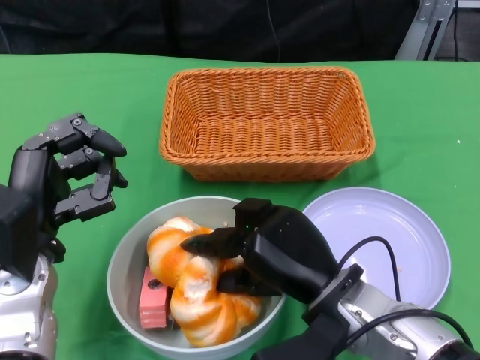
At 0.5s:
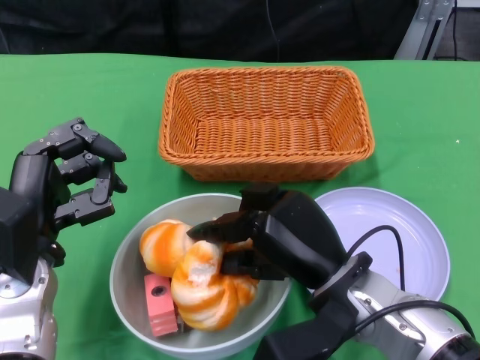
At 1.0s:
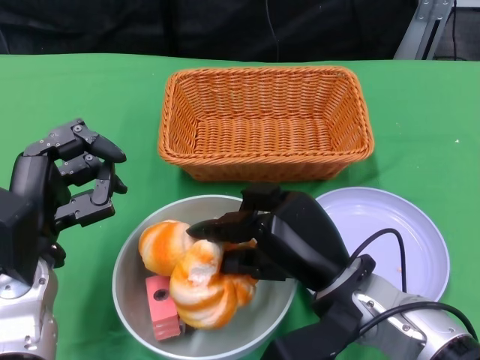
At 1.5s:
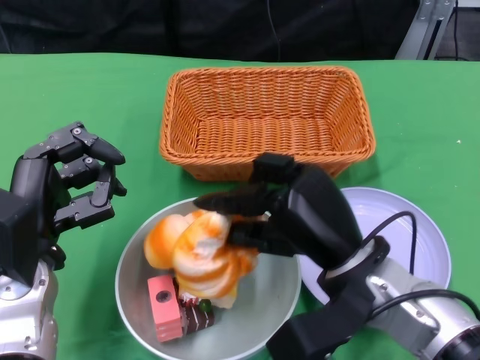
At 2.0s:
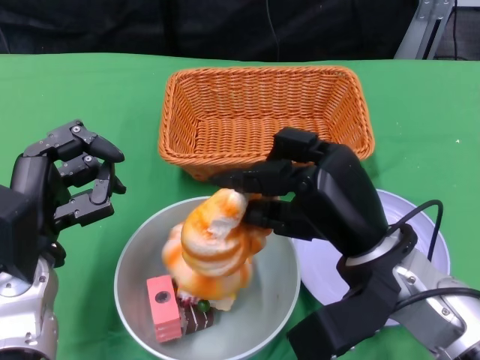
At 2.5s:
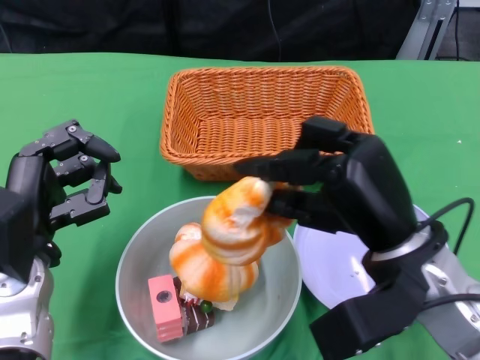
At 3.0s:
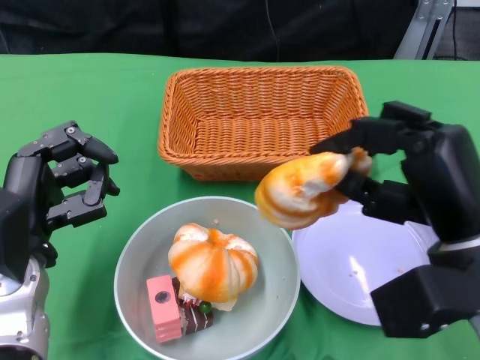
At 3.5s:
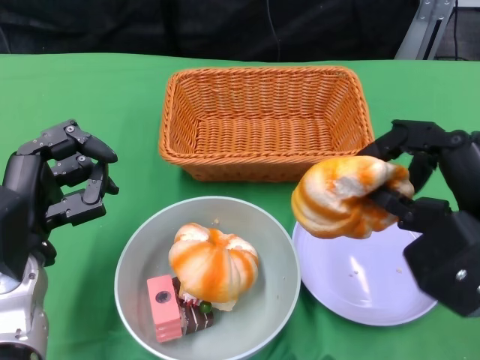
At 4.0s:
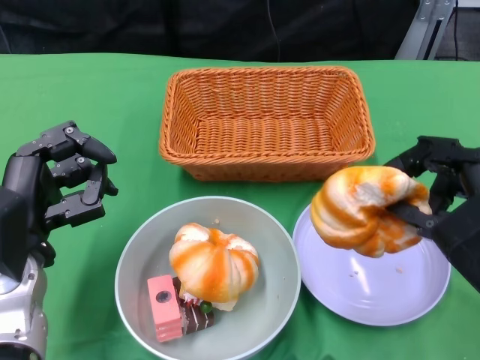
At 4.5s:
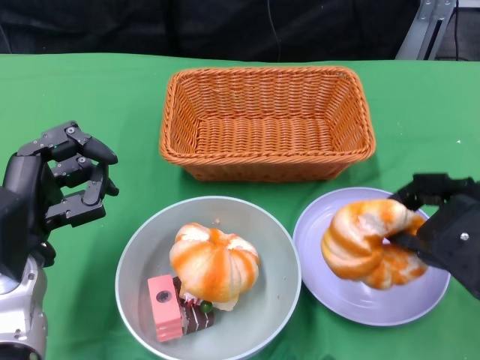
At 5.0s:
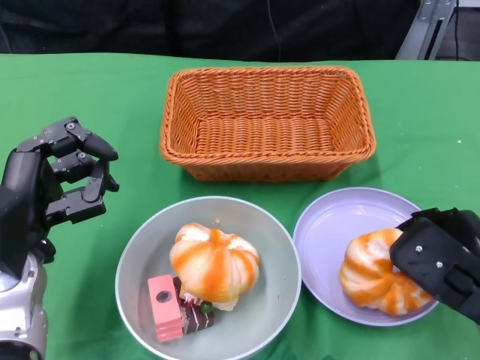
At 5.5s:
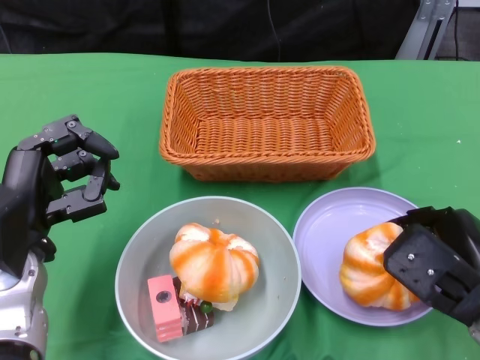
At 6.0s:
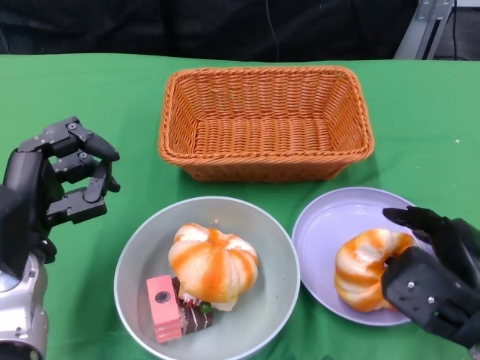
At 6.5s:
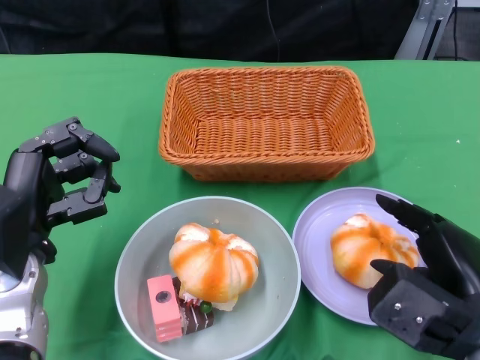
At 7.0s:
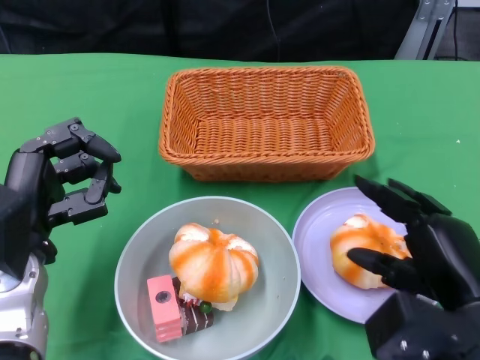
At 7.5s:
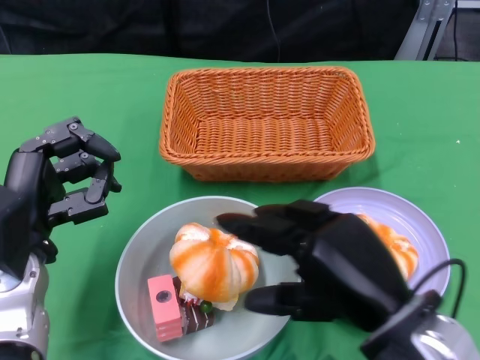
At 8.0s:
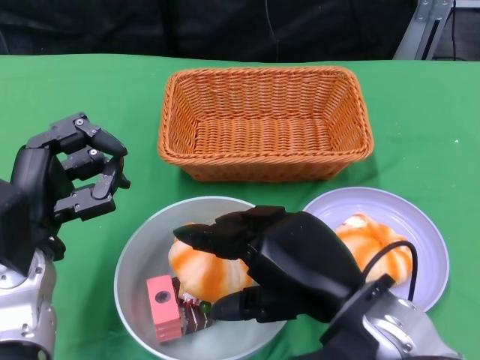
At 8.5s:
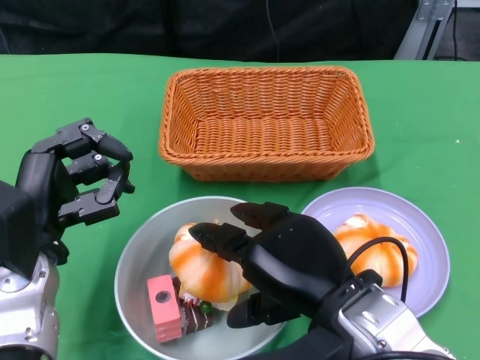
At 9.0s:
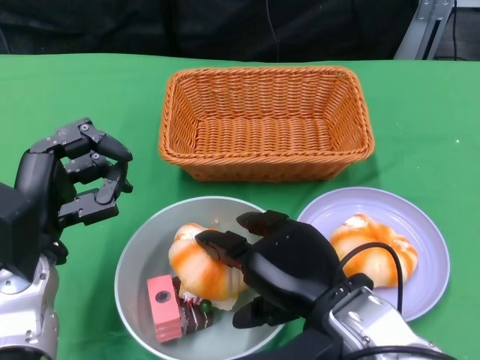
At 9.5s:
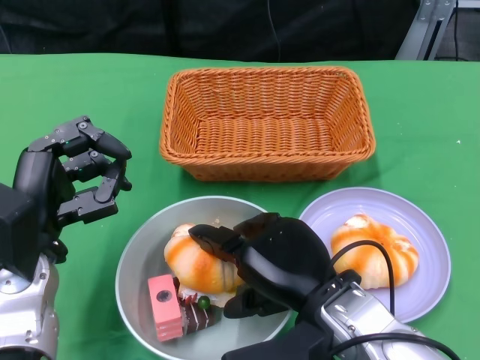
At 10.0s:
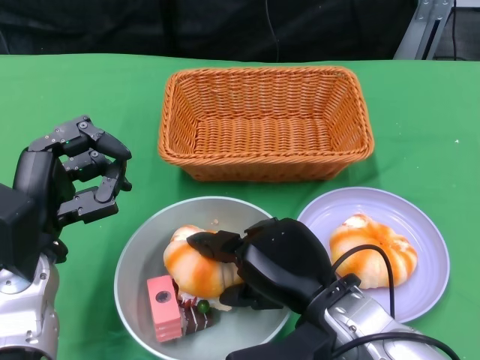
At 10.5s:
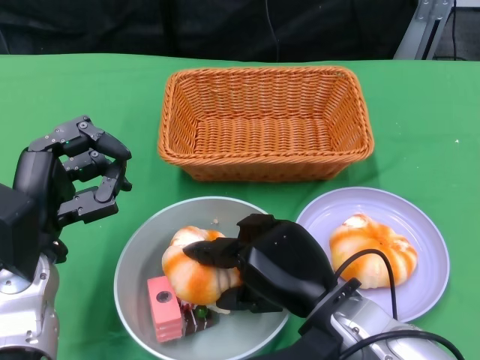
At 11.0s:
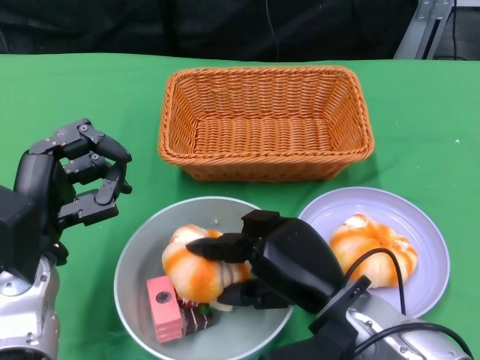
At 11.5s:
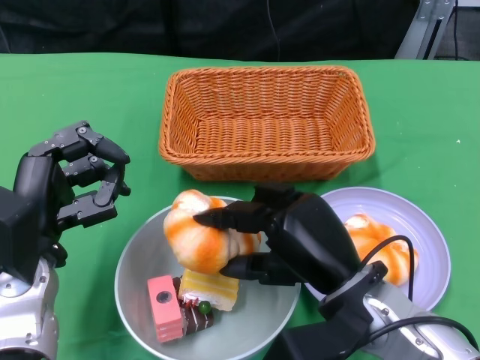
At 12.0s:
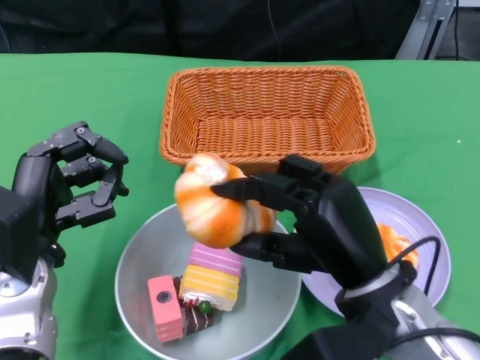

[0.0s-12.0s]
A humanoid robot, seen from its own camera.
Step, 0.0s to 6.5s: Pick up the bread with the right gripper and place it on the plate.
0.0s to 2.0s: The right hand is displaced upward by some 5 cm.
2.0s to 4.0s: The right hand shifts about 10 cm to the right and backward.
4.0s to 6.0s: The right hand shifts some 10 cm downward.
6.0s to 8.0s: The right hand shifts some 15 cm to the left and upward.
8.0s to 10.0s: The right hand moves downward, approximately 5 cm.

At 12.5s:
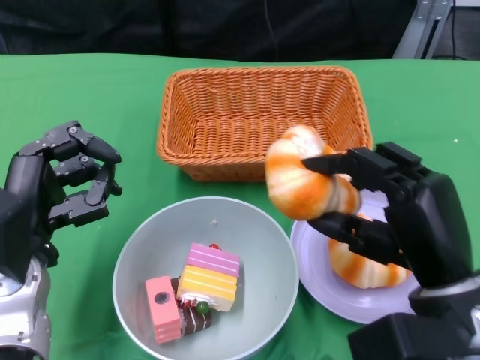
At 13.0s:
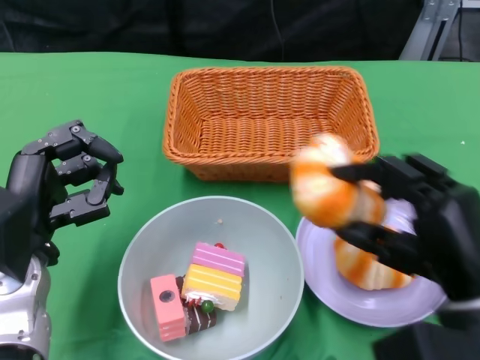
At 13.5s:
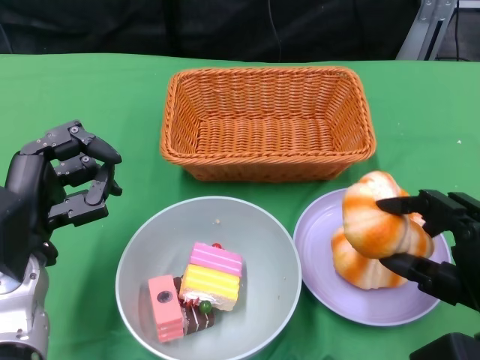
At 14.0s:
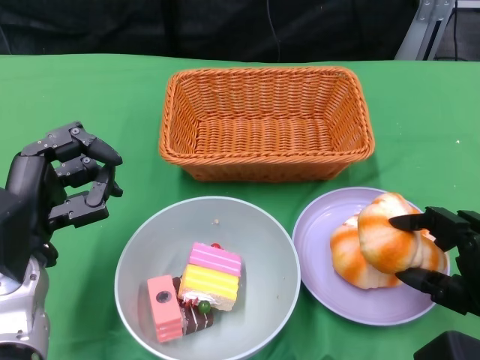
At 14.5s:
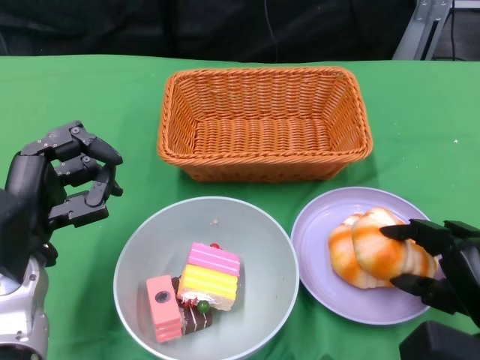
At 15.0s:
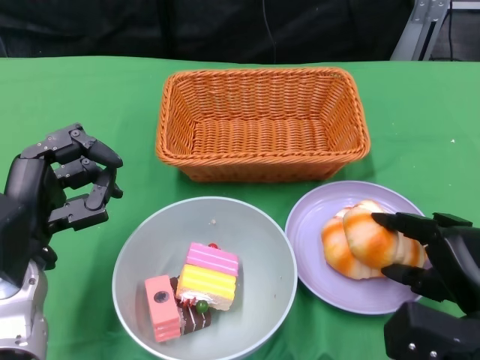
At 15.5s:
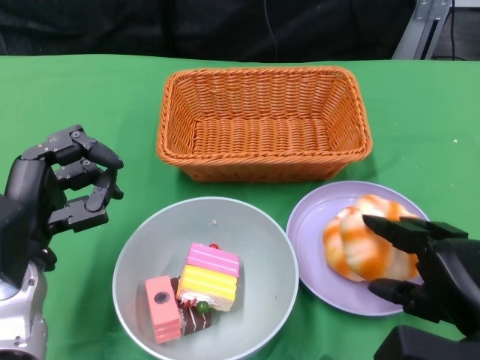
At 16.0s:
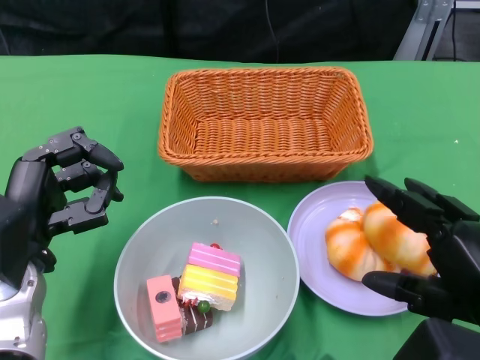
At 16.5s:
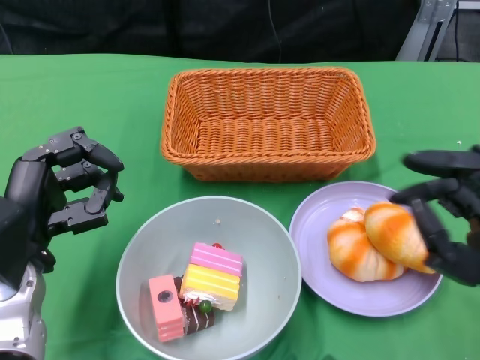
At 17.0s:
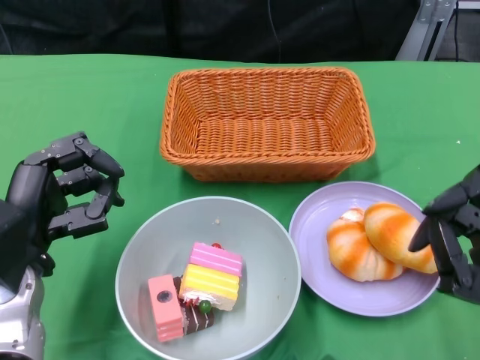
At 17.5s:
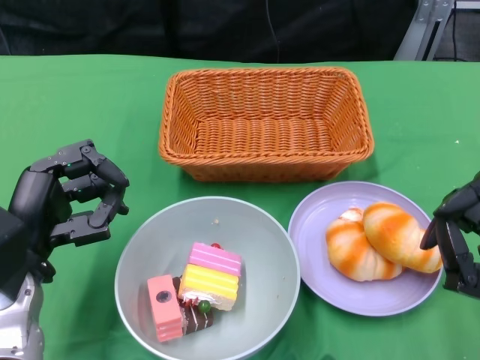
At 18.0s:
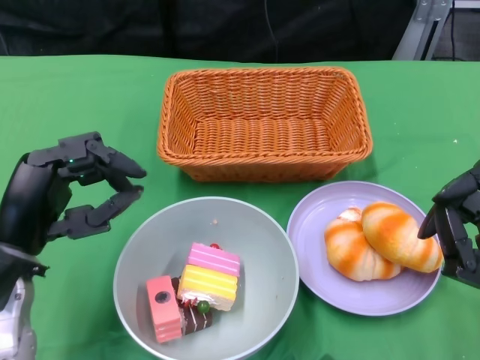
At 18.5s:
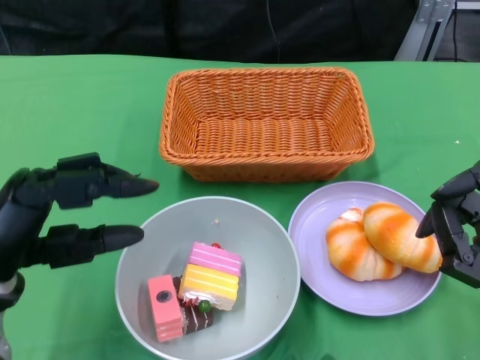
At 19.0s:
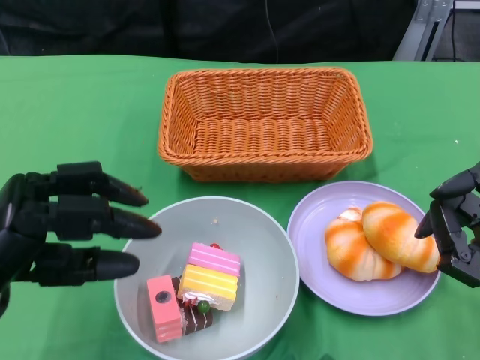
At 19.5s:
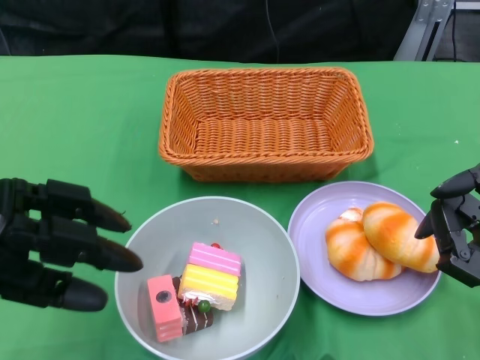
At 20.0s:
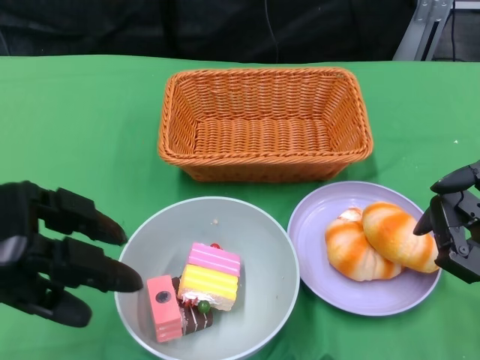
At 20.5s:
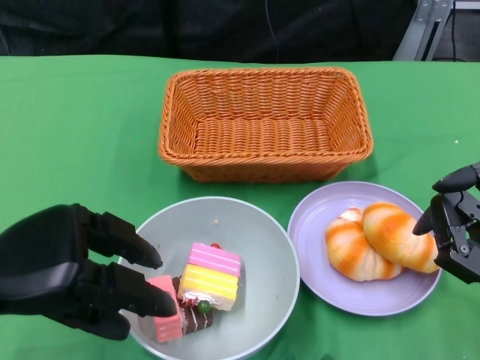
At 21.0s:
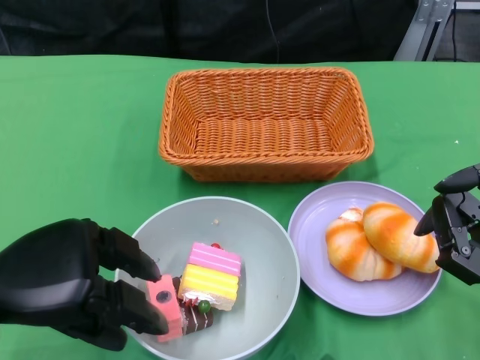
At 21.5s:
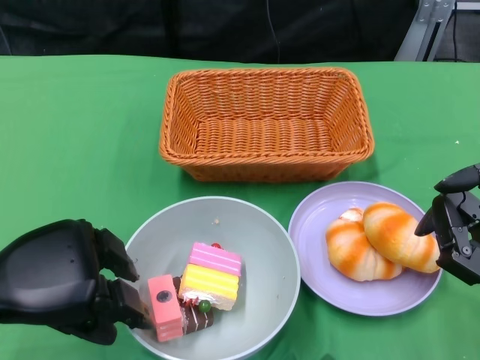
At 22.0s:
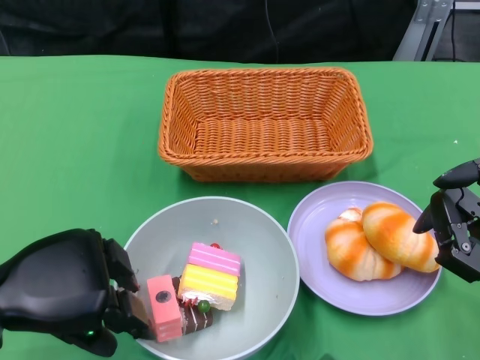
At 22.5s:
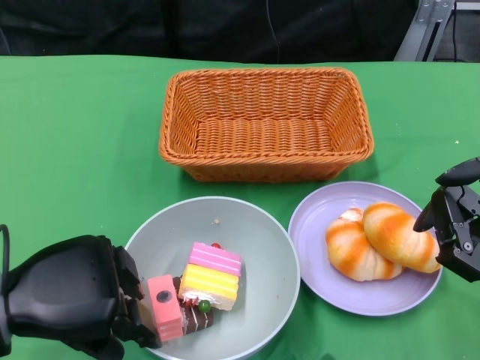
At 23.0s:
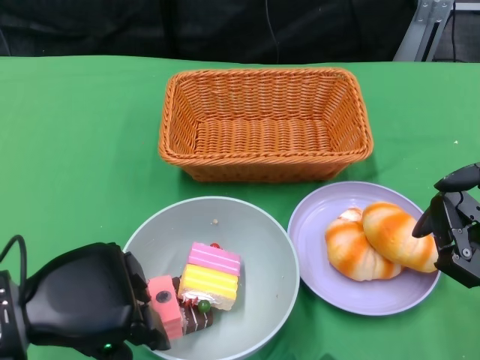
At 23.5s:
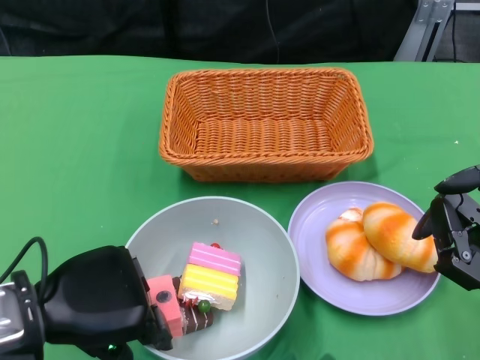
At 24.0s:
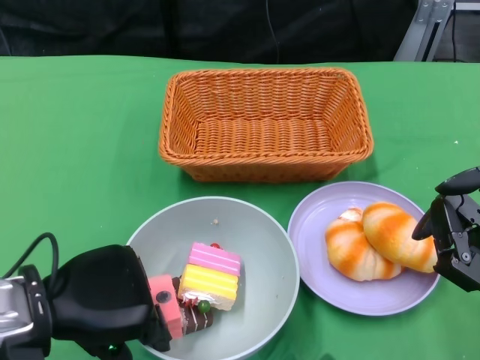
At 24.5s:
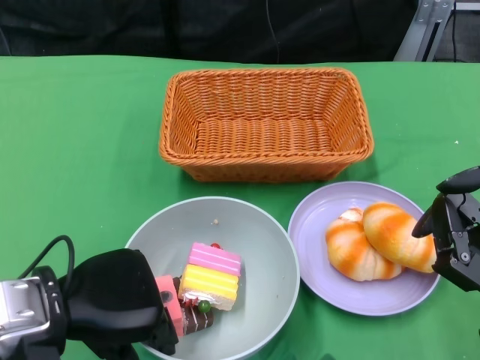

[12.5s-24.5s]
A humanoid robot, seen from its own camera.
Step, 12.5s to 16.5s: Pick up the bread with the right gripper and place it on the plate.
Step, 17.0s to 24.5s: Grasp the bowl with the left gripper.
12.5s to 14.5s: The right hand shifts roughly 10 cm downward and to the right.
14.5s to 16.5s: The right hand moves upward, about 10 cm.
20.5s to 22.5s: The hands make only small movements.
22.5s to 24.5s: There are only small adjustments of the hands.

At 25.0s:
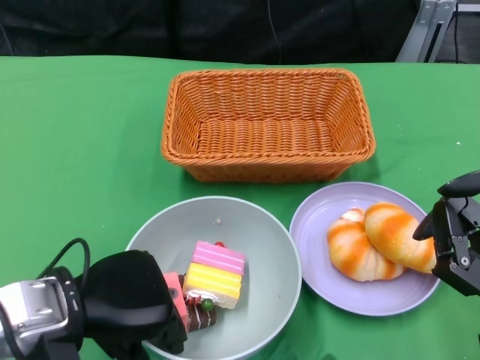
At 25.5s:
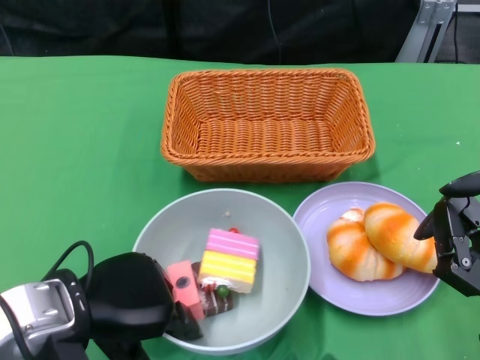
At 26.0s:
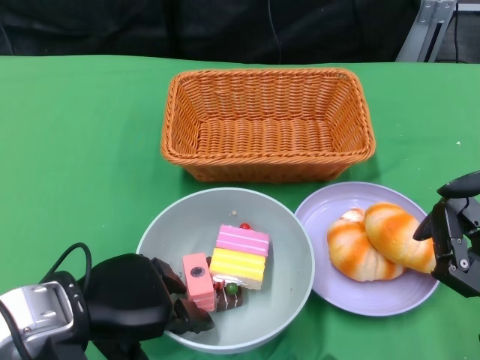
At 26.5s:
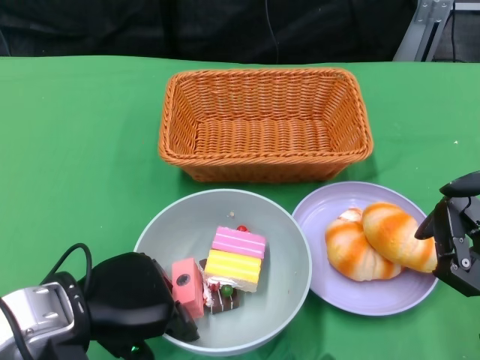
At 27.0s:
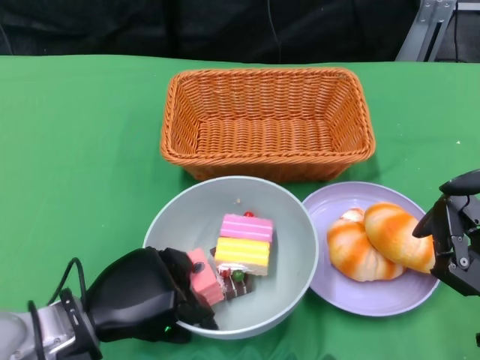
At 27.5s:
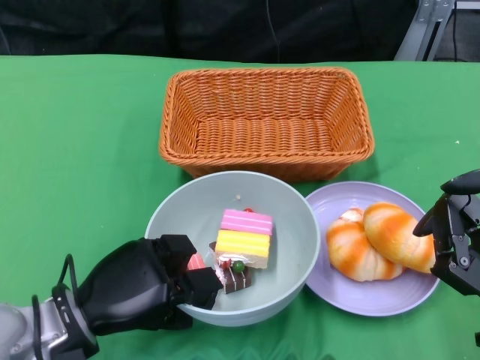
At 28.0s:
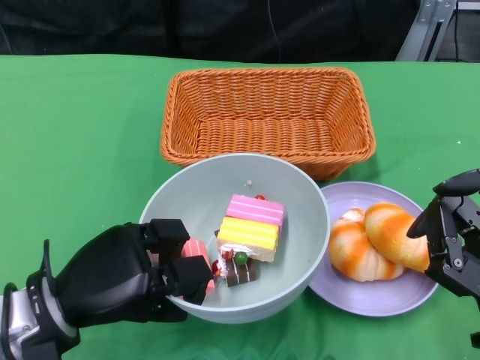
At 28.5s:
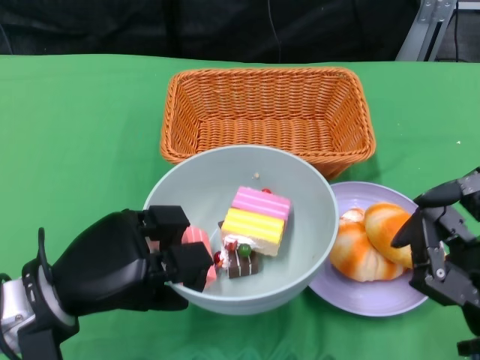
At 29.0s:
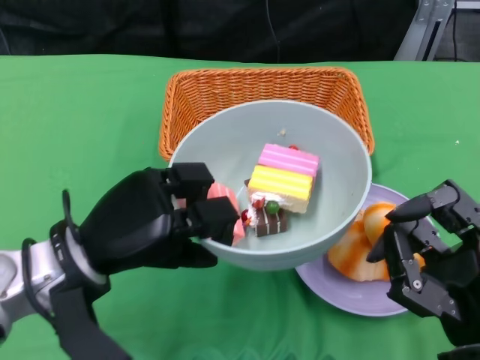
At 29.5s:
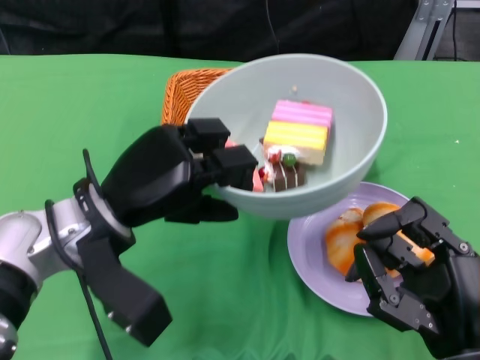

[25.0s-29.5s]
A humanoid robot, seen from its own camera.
25.0s to 27.0s: The left hand moves downward, some 5 cm.
27.0s to 29.5s: The left hand shifts approximately 10 cm upward and forward.
